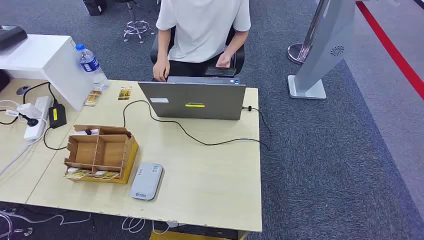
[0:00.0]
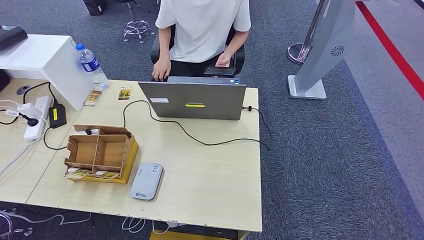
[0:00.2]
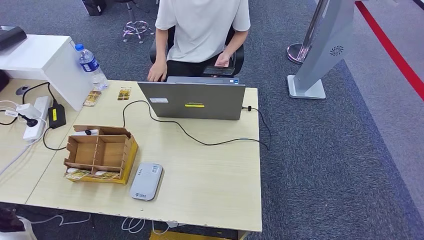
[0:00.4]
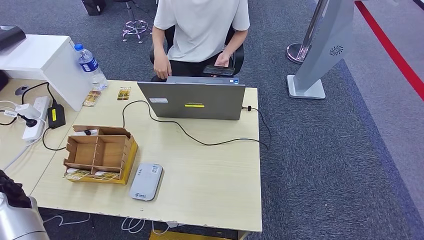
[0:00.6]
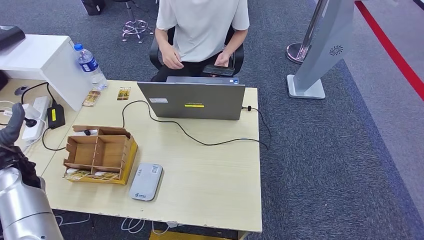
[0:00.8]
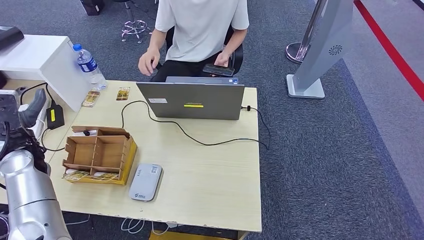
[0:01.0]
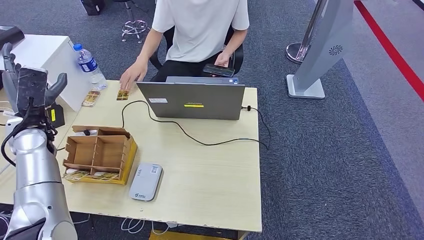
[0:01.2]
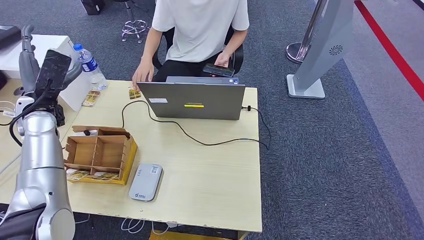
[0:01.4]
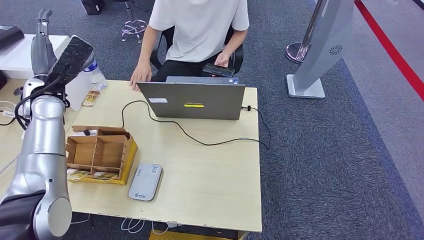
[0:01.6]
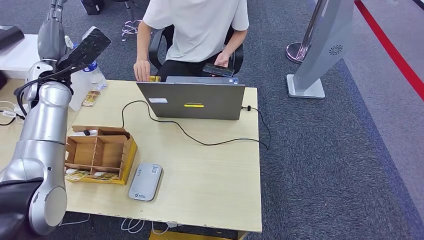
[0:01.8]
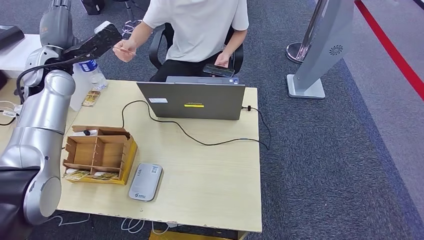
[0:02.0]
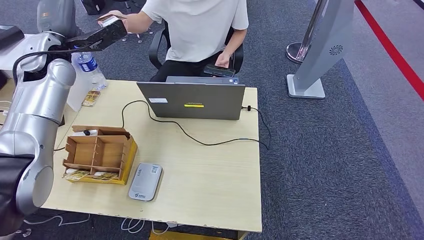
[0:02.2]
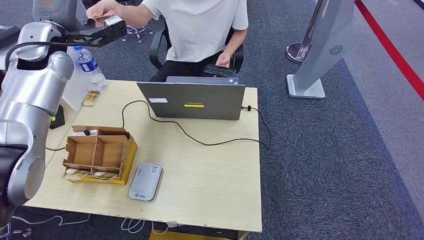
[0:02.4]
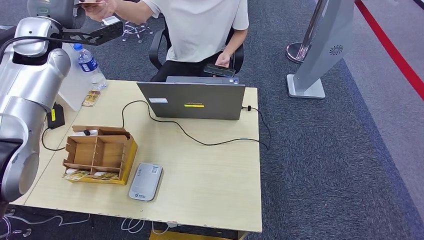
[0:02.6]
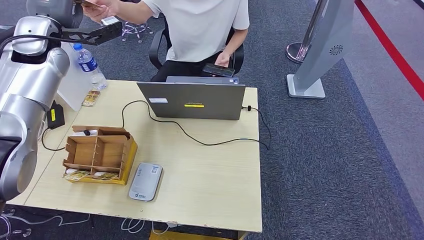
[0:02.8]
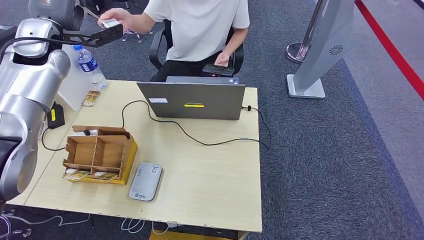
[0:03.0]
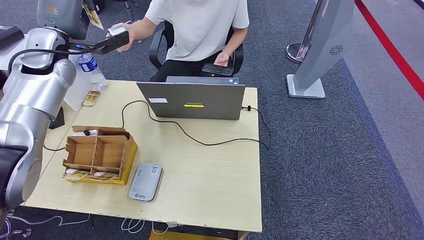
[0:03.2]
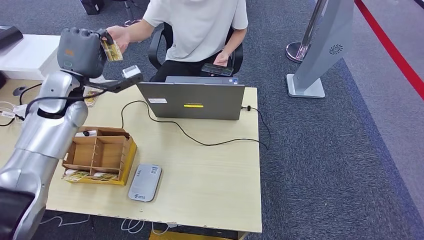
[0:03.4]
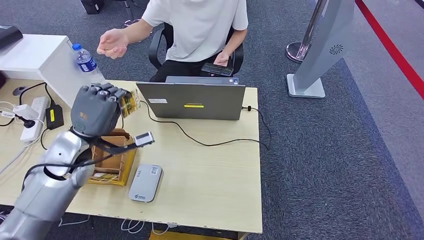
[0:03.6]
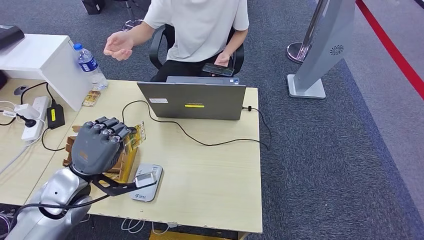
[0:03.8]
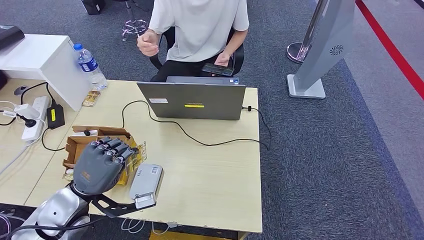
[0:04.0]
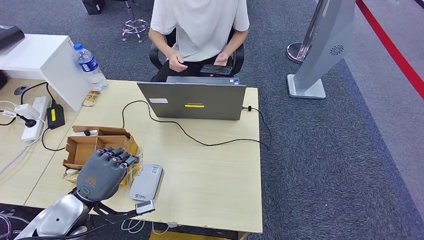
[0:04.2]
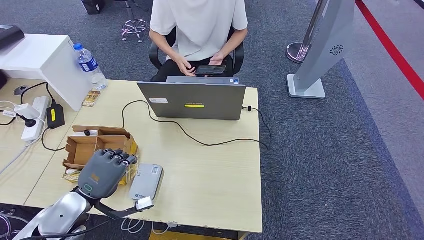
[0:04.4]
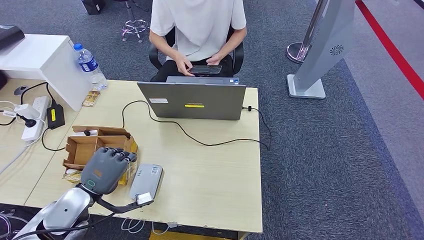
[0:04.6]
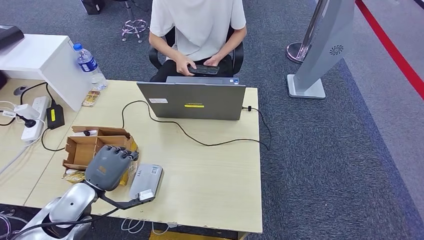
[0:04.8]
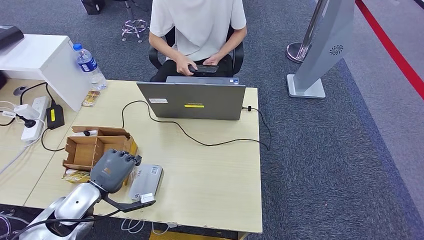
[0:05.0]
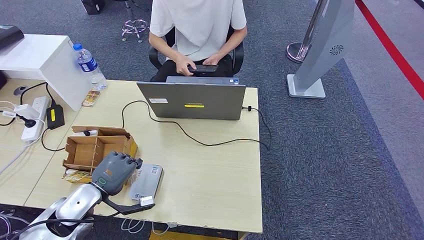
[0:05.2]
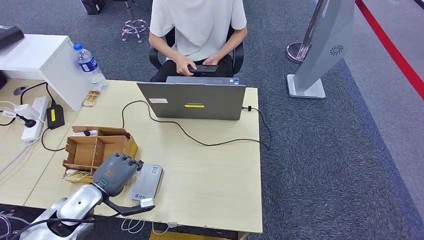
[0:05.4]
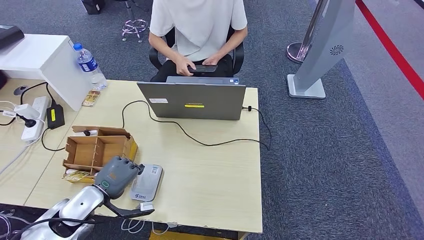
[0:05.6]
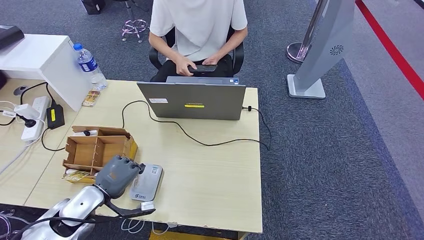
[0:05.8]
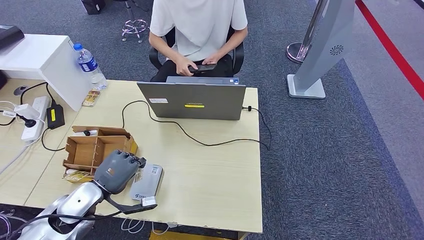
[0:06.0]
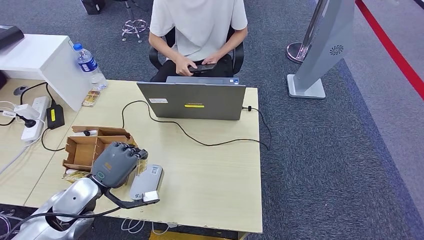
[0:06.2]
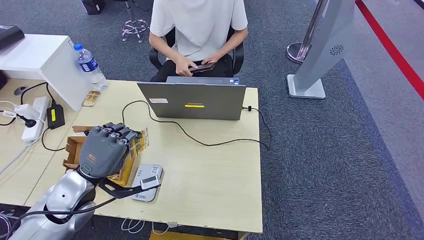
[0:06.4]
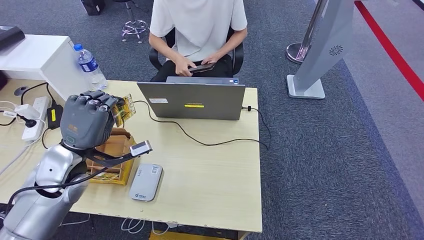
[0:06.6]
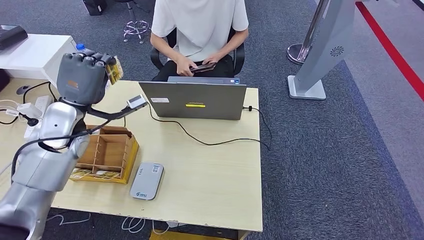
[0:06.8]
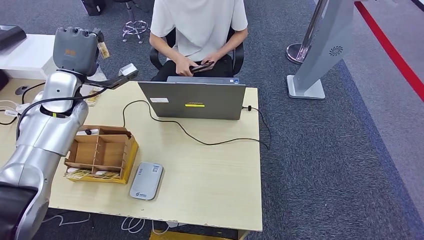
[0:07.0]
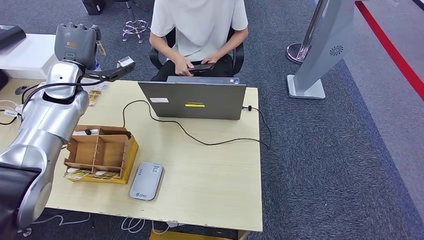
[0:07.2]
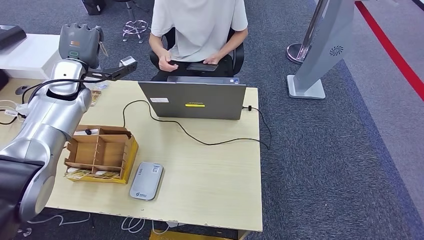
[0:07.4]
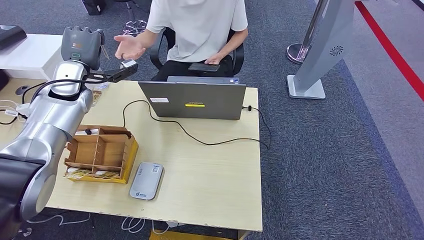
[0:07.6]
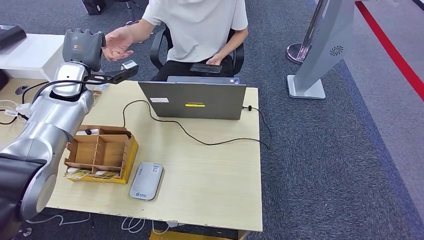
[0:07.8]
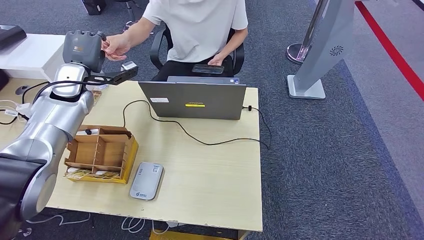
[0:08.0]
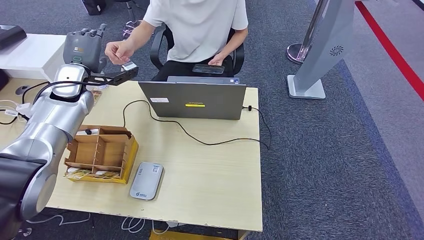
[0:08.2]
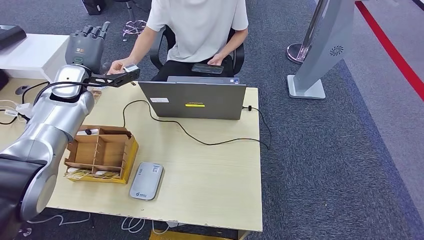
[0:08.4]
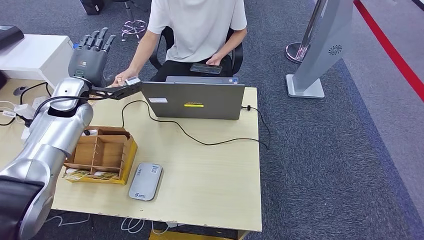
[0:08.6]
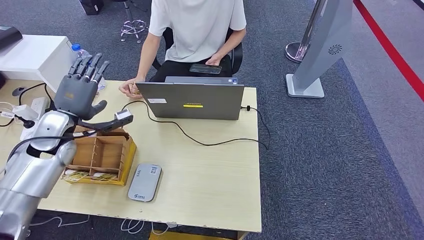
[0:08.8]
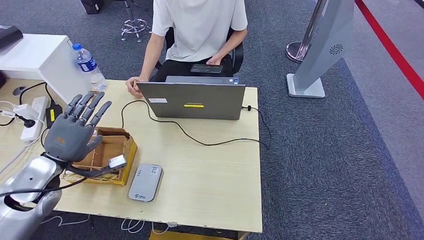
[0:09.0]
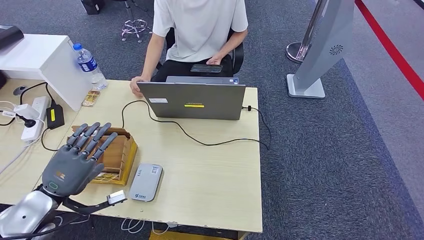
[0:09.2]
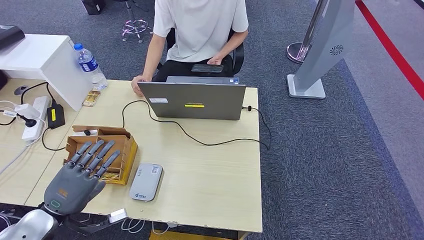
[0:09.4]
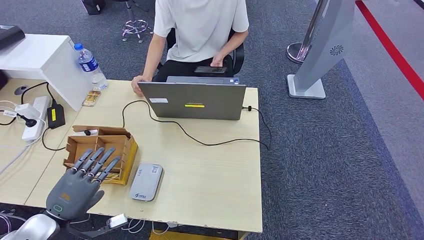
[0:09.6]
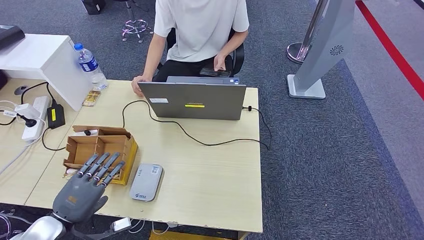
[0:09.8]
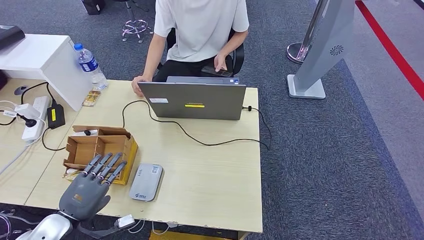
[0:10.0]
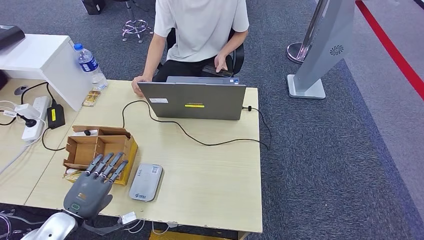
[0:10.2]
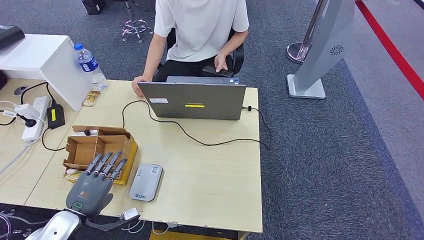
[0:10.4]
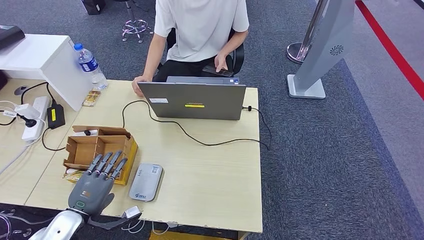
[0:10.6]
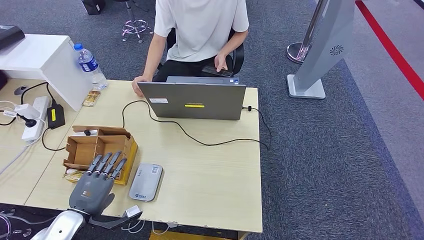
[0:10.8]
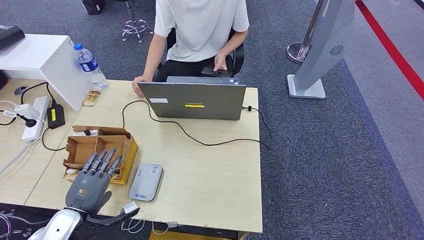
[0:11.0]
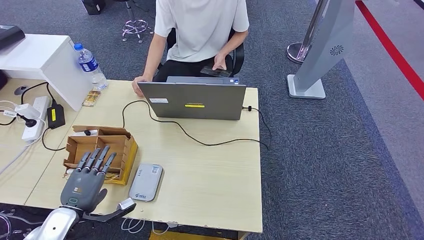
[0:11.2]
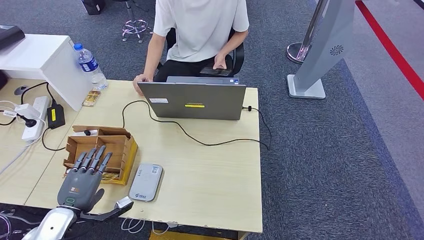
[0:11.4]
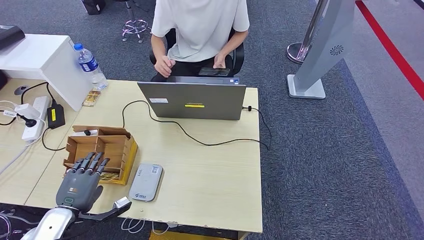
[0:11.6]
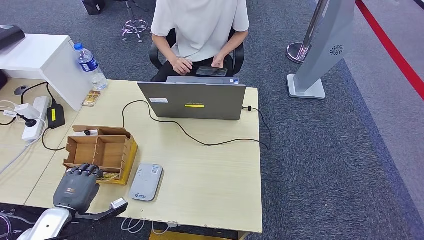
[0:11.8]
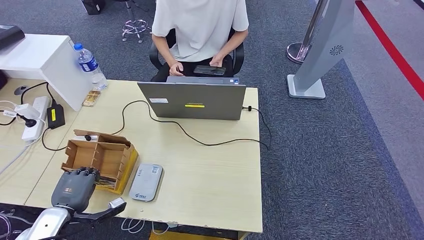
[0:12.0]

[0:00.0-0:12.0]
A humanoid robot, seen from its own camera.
Step, 0:00.0 to 0:02.8: Take the ID card from the person's hand.
Step, 0:03.2 to 0:07.2: Place the ID card on the card reader.
Step, 0:07.4 to 0:09.8: Hand the ID card to the person.
0:01.6 to 0:03.0: The left hand is displaced upward and forward by roughly 10 cm.
0:03.0 to 0:04.4: The left hand shifts approximately 40 cm backward and downward.
0:06.0 to 0:07.6: The left hand heads forward and upward, covering approximately 30 cm.
0:07.6 to 0:09.0: The left hand is displaced backward and downward by approximately 25 cm.
0:09.0 to 0:10.4: The left hand moves backward and downward, approximately 15 cm.
0:10.4 to 0:12.0: The hands stay close to where they were, moving slightly.

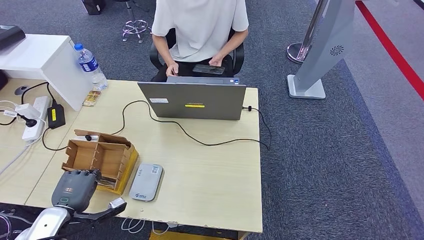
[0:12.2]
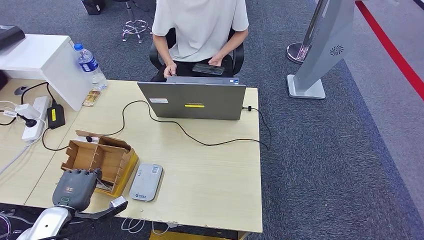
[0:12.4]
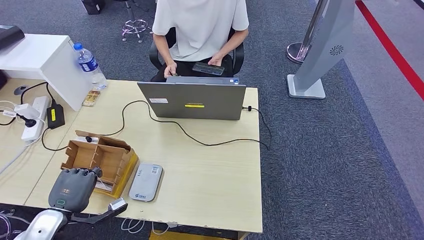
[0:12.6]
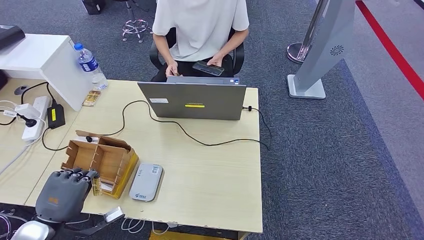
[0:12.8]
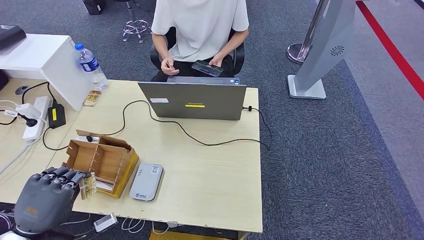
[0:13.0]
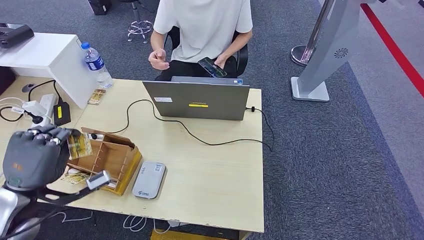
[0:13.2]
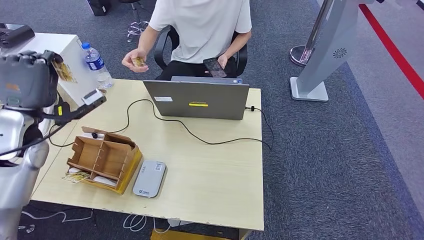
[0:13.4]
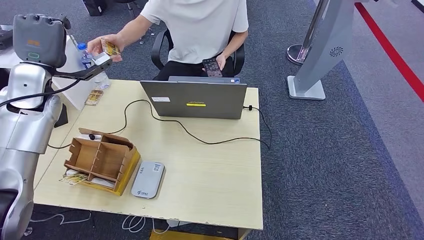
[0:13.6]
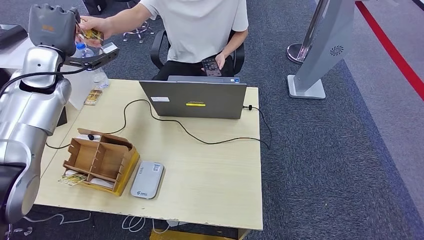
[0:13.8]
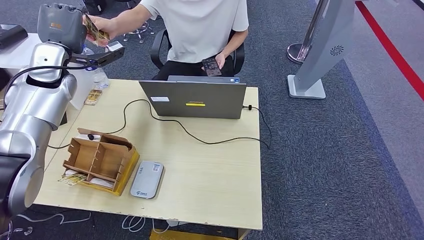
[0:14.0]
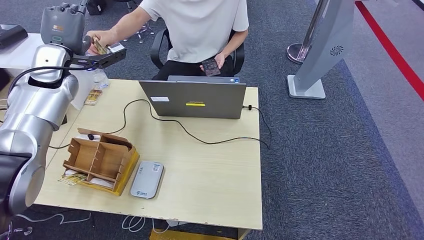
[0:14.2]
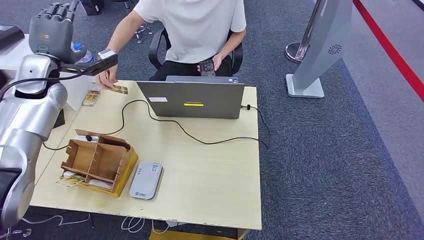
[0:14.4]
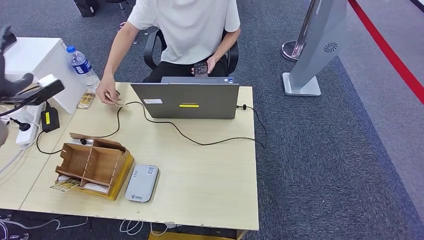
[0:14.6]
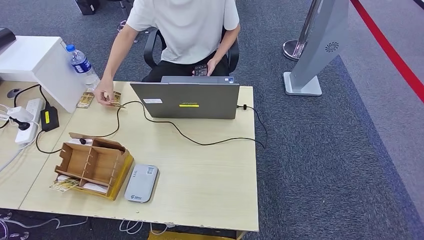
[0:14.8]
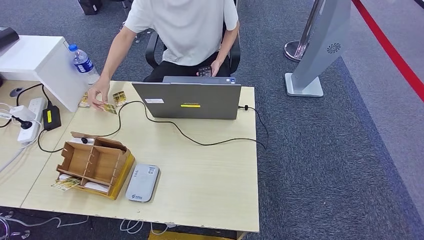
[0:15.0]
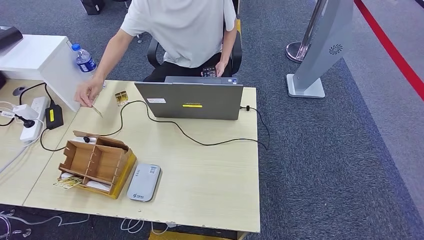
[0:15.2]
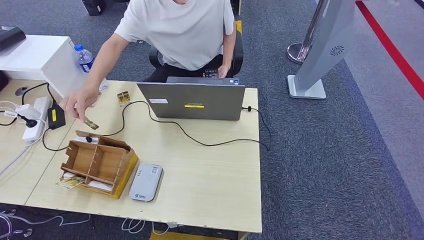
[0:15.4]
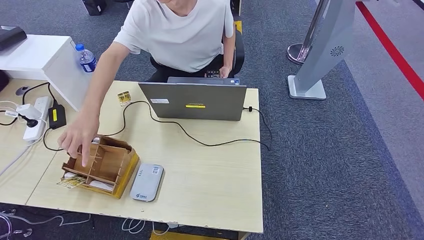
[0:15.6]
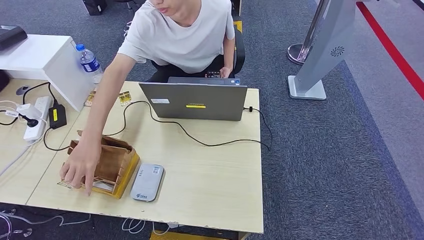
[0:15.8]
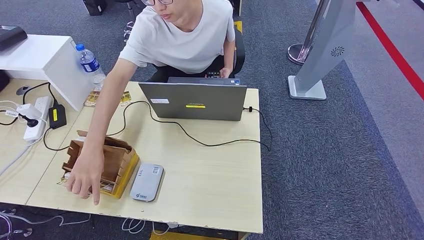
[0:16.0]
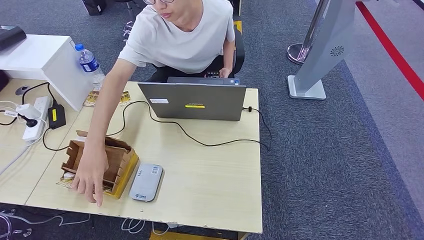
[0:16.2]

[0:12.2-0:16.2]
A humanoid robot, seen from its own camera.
Step, 0:14.0 to 0:16.2: Hand the room key to the person.
